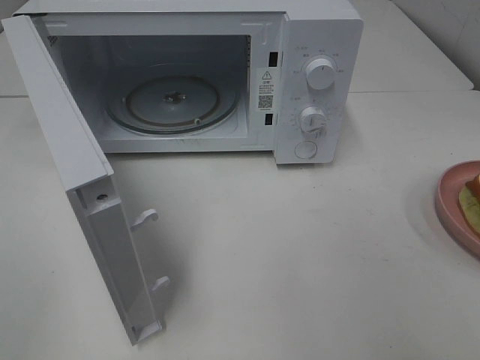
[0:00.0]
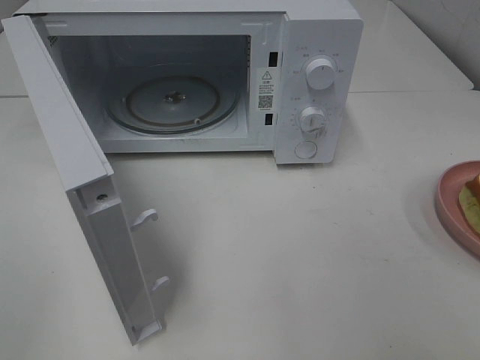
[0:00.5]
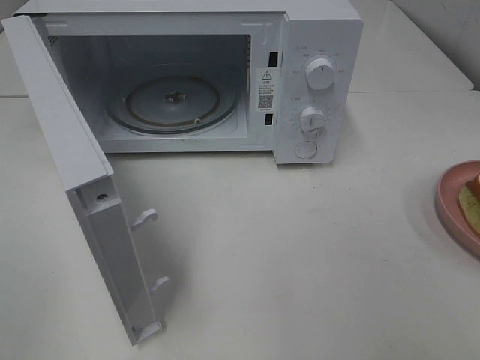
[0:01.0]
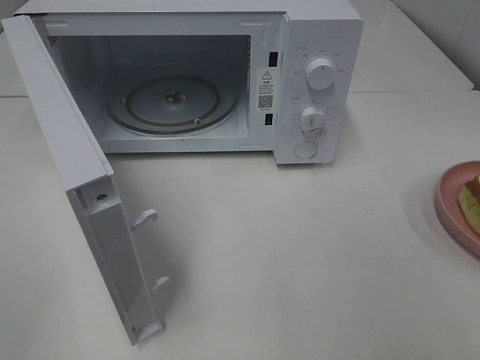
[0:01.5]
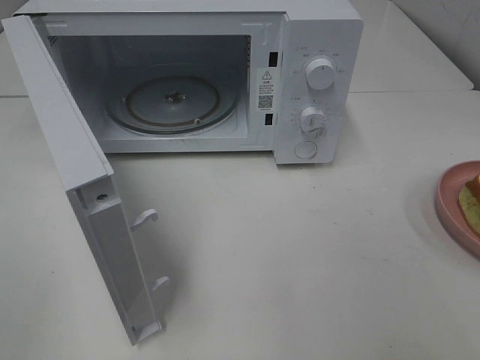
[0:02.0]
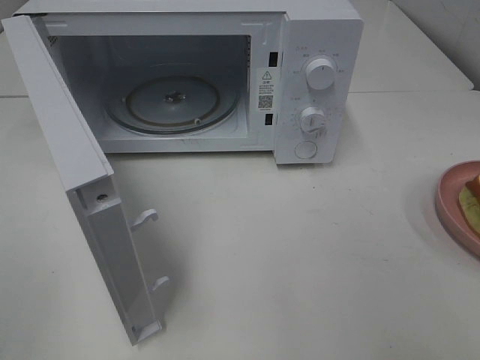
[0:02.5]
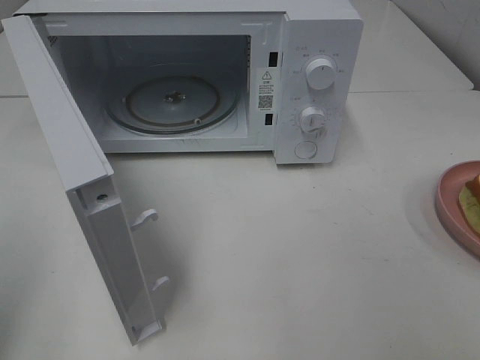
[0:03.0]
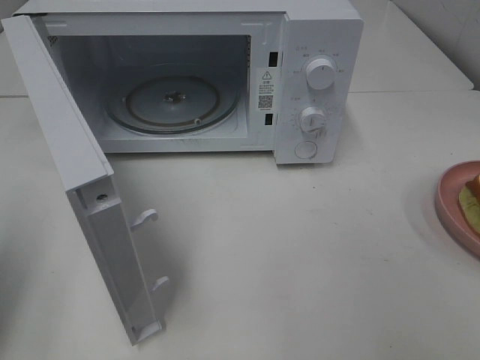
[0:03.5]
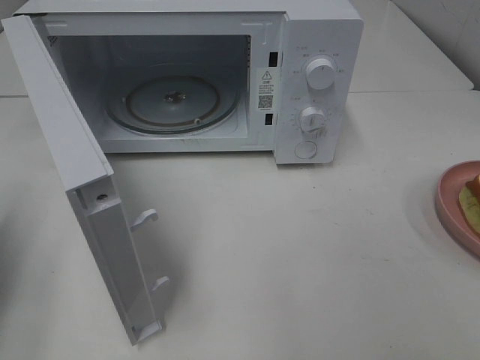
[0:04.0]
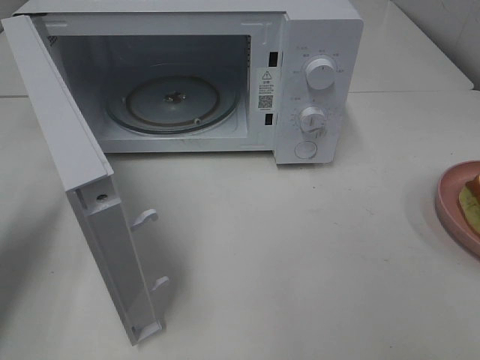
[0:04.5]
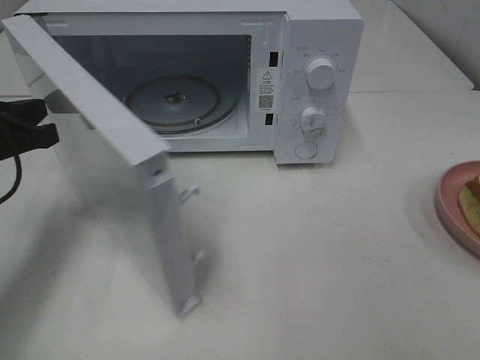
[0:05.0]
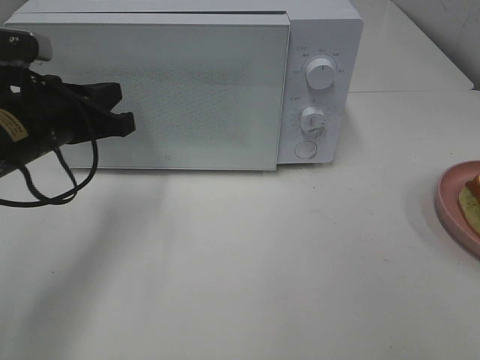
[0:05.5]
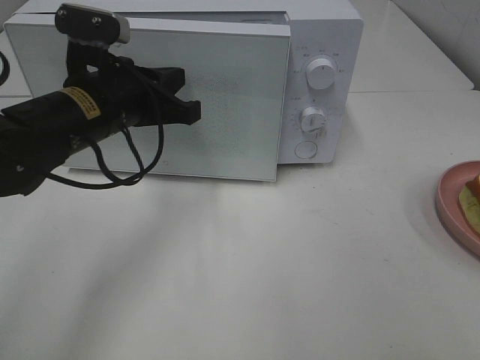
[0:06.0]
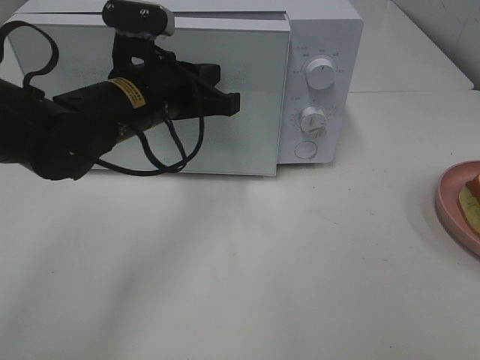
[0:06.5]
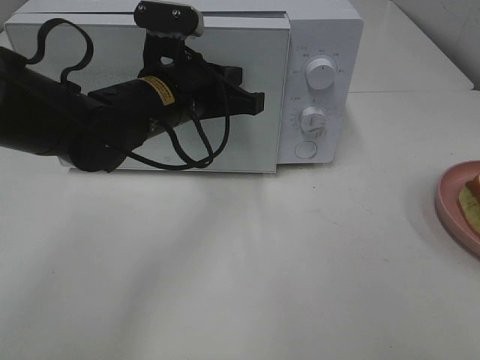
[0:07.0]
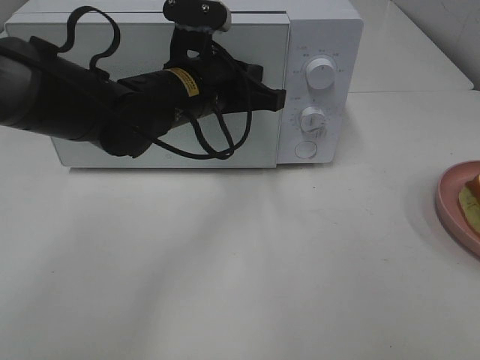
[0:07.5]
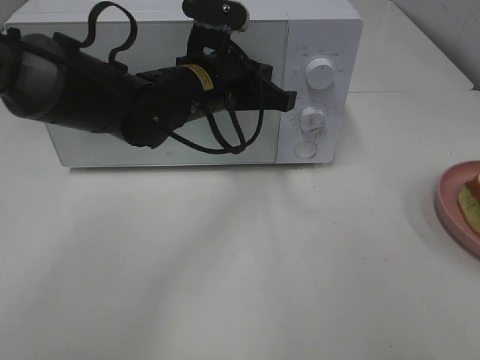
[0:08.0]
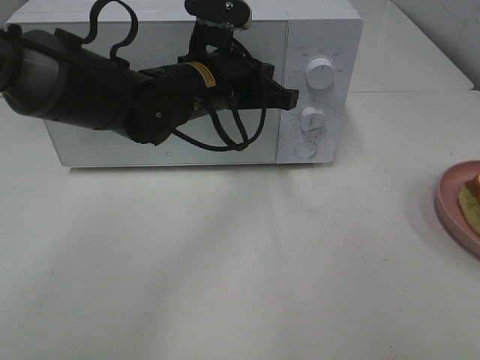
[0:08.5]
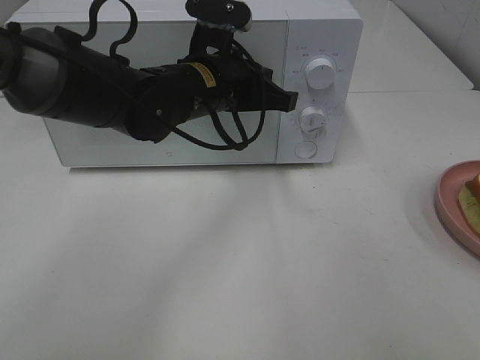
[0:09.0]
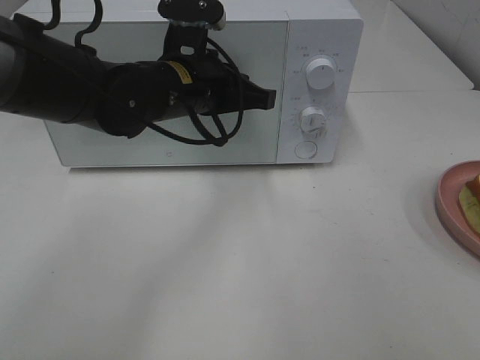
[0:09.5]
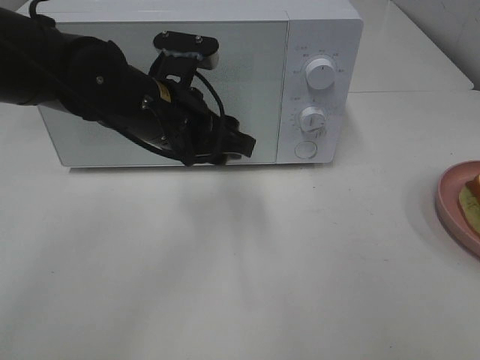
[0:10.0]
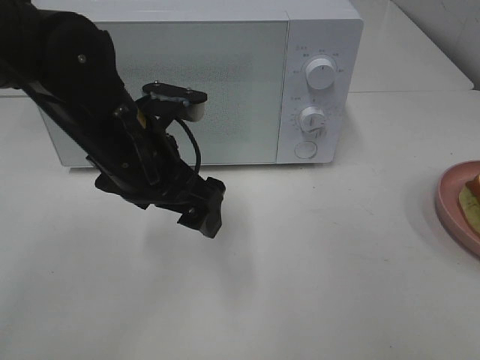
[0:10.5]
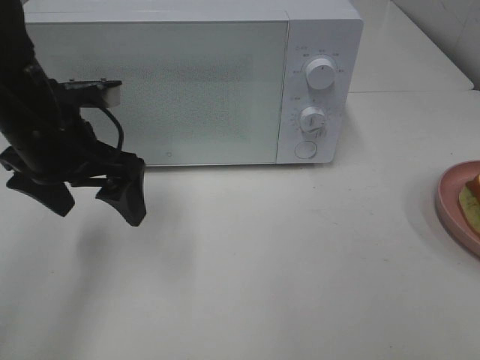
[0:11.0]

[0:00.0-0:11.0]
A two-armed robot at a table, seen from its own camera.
Task of the whole recording: Heat Sandwich.
Step, 0:00.0 to 0:09.5: Left hand: close the microwave door.
0:02.0 to 0:03.5: The left gripper is displaced forward by about 15 cm, and closes.
0:03.5 to 0:05.5: The left gripper shifts roughly 25 cm forward, to the right and downward.
0:05.5 to 0:07.5: The left gripper is displaced to the right by some 15 cm.
0:07.5 to 0:09.0: The grippers move only a little.
0:09.0 to 0:11.0: The left gripper moves to the left and backward, some 15 cm, and opens its fingers.

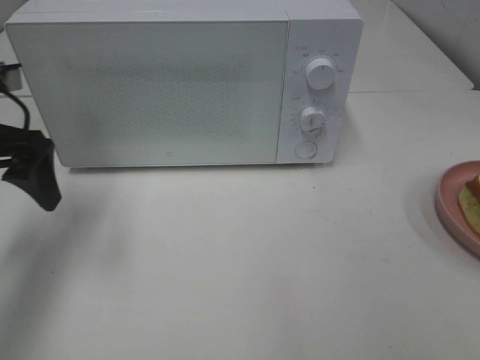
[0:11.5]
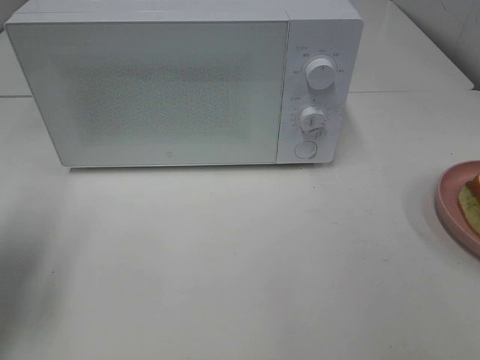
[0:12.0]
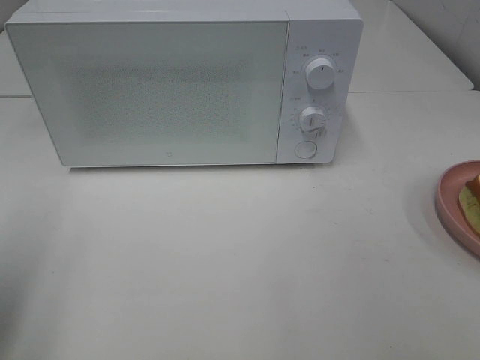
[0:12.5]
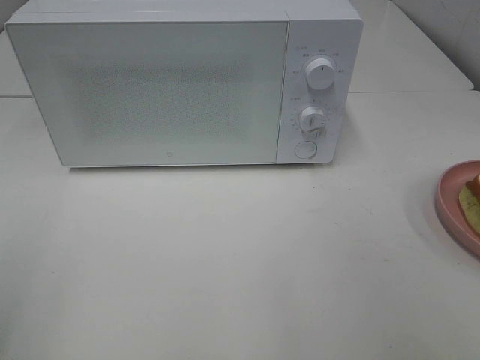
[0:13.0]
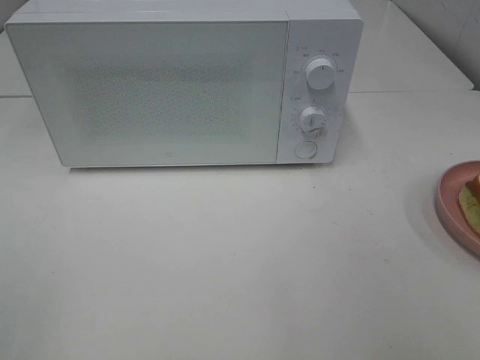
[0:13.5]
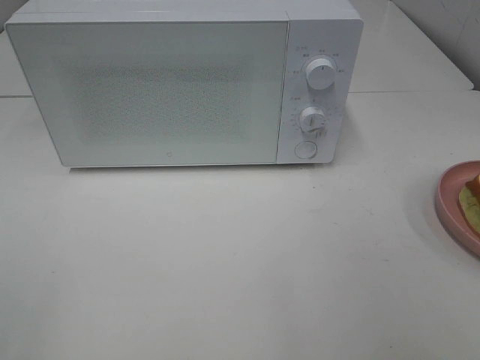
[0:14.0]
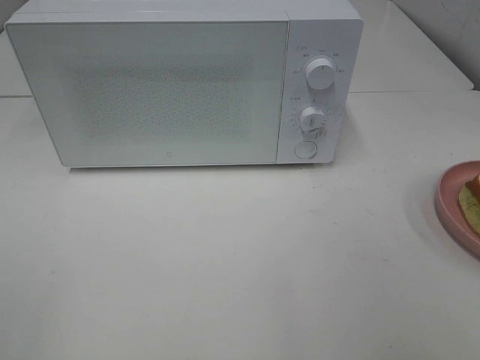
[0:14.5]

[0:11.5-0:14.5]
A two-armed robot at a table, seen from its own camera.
Task of the whole recording: Heat Sandwich.
0:11.5 to 0:13.0: The left gripper heads backward, covering about 25 cm.
